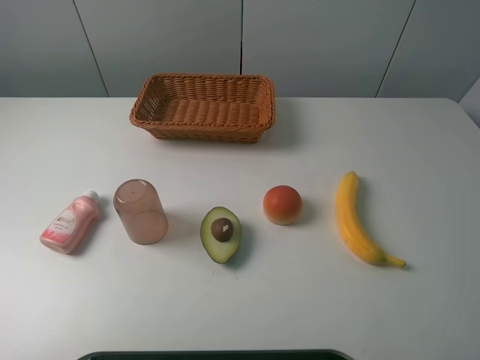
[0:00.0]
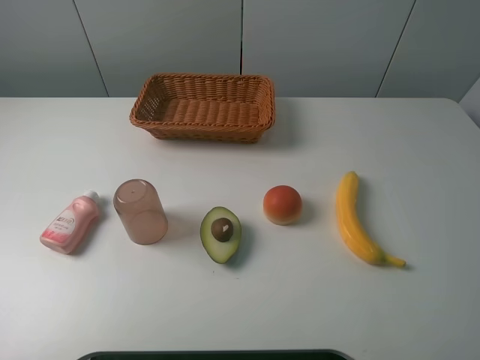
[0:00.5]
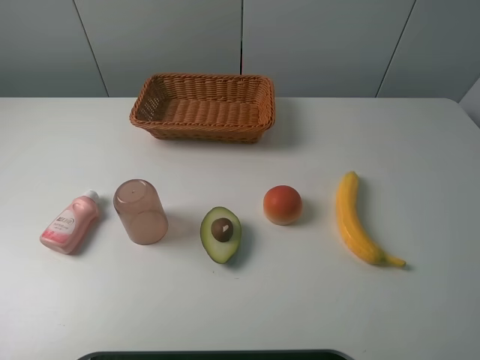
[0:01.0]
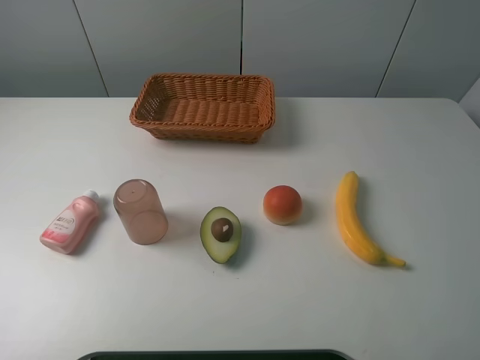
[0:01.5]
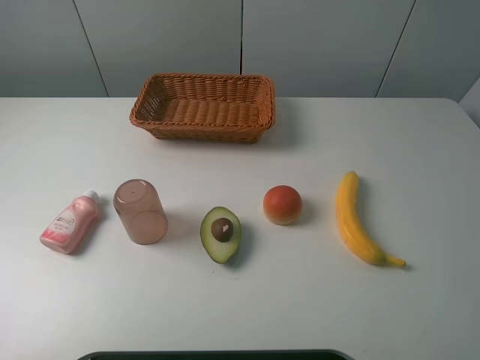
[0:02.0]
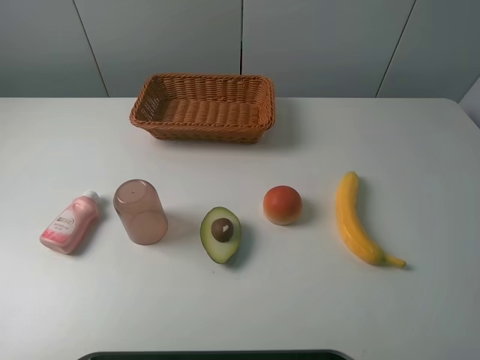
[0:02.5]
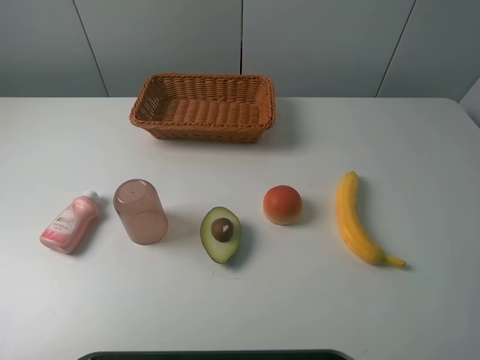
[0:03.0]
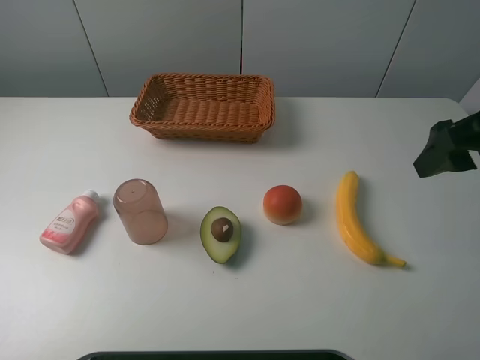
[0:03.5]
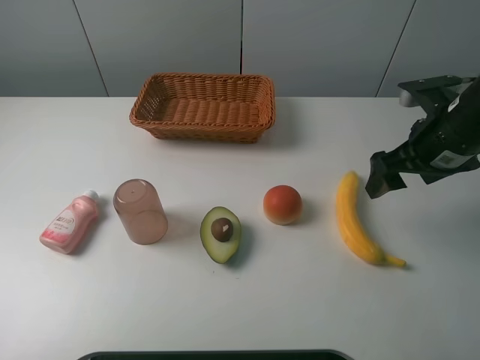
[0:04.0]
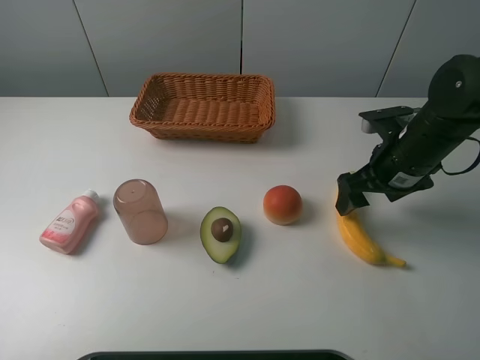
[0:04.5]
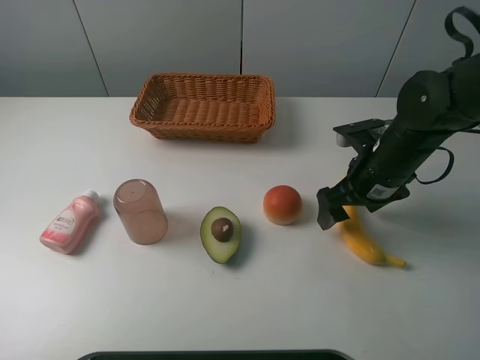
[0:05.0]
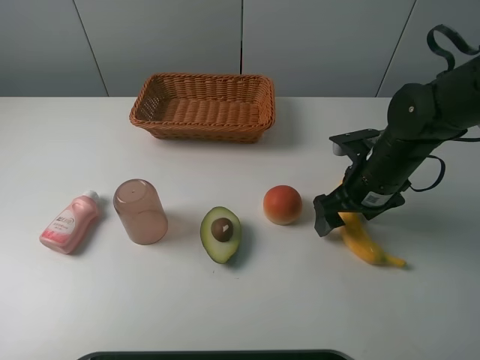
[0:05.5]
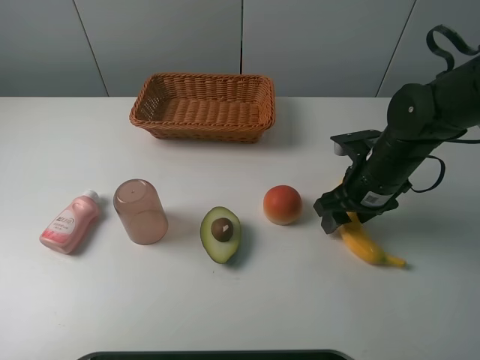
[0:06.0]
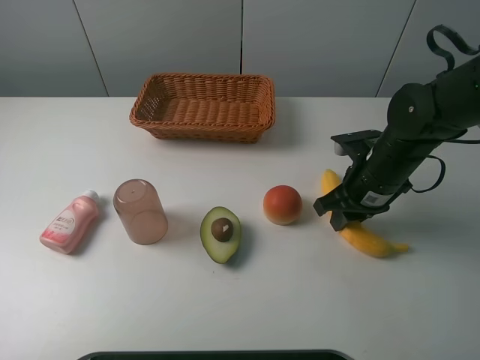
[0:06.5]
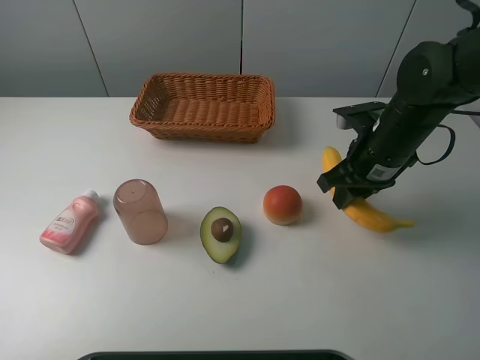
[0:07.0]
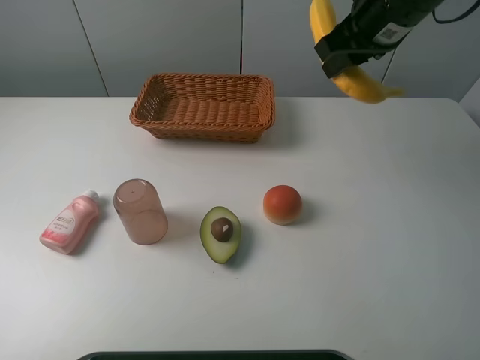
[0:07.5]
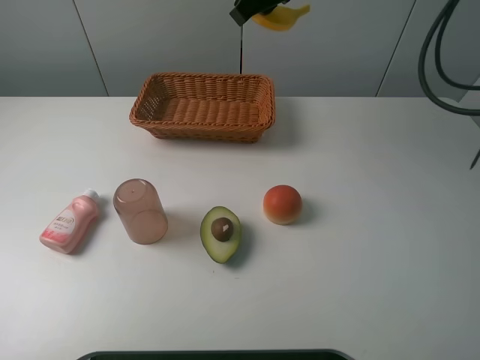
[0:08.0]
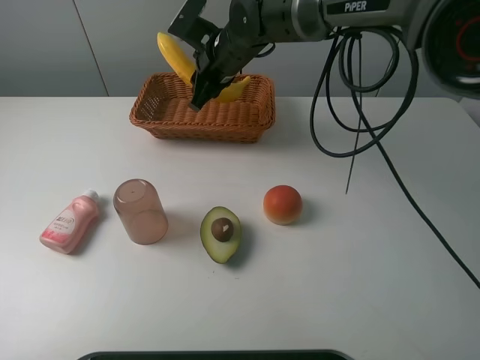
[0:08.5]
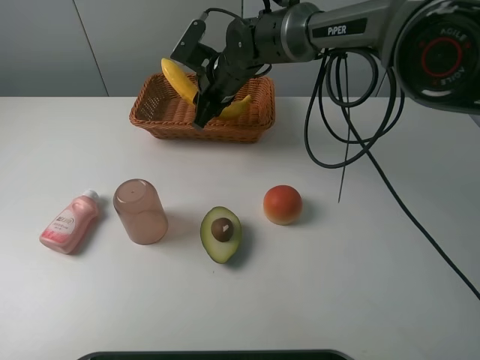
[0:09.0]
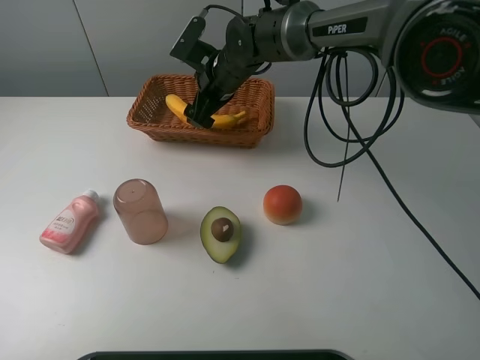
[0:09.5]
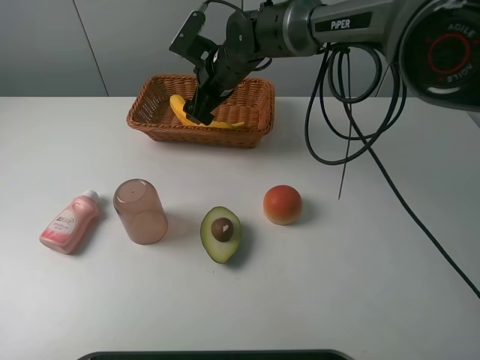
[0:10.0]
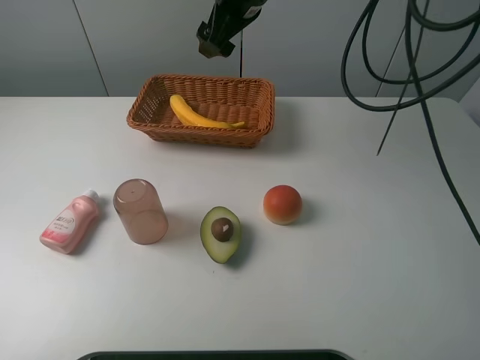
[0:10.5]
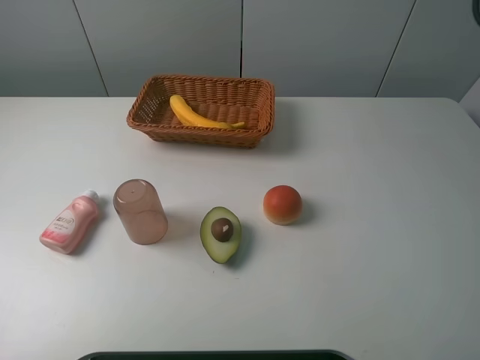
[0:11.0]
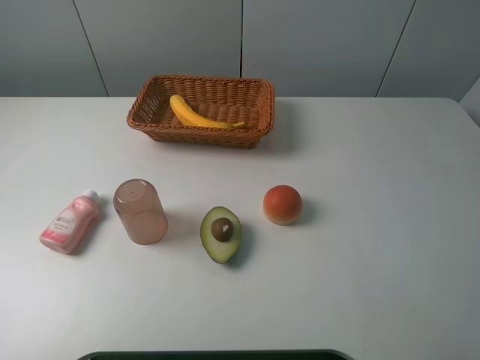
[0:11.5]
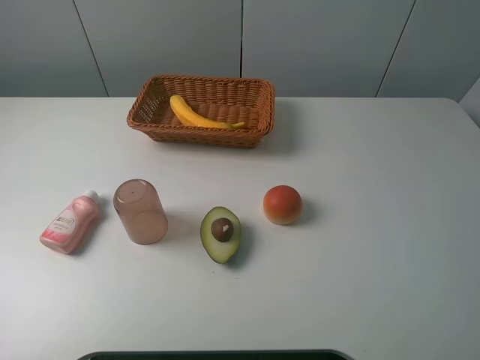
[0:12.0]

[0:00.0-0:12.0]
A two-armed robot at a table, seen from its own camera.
Task of the whole recording: randomly pick up an item from the table and put it in the basket.
Step, 0:00.0 to 0:06.5: Grasp the banana with the right gripper.
Step, 0:07.0 to 0:10.0: Place the banana into the basket with the right gripper.
0:00.0 to 0:02.0: Both grippers stay put.
0:02.0 to 0:04.0: The right gripper shifts roughly 25 cm forward.
0:04.0 to 0:06.0: The right gripper shifts roughly 10 cm downward and to the left, and closes up.
0:06.0 to 0:08.0: The right gripper is displaced upward, to the left and forward by about 30 cm.
0:08.0 to 0:10.0: The right gripper heads downward and to the left, covering roughly 15 cm, and opens its fingers.
0:10.0 to 0:12.0: The right gripper shifts approximately 50 cm to the right, backward and upward.

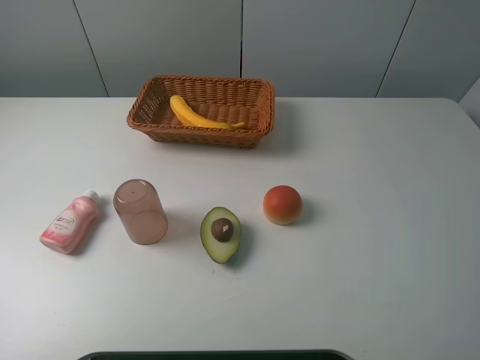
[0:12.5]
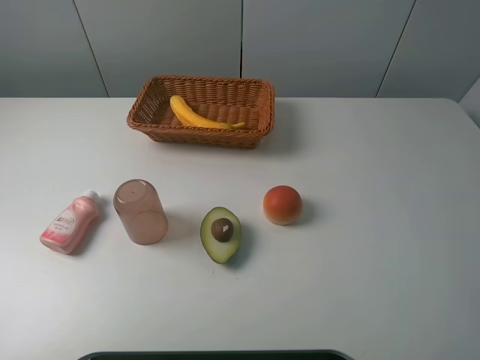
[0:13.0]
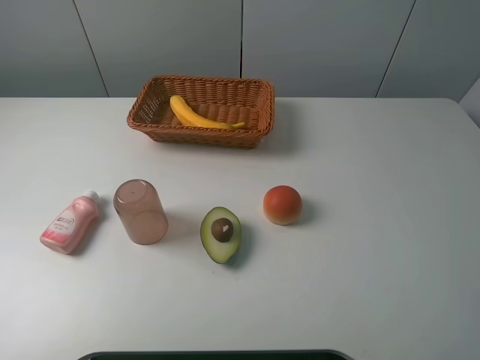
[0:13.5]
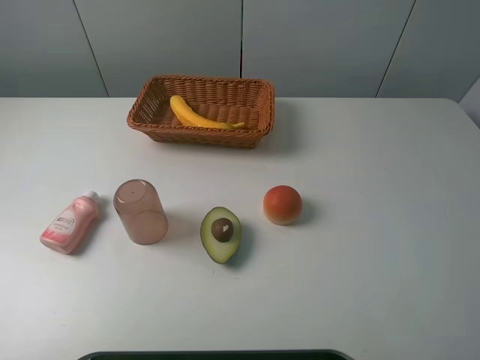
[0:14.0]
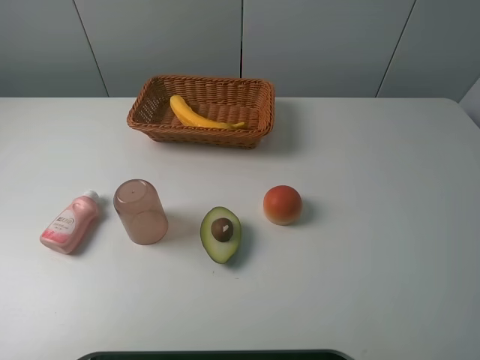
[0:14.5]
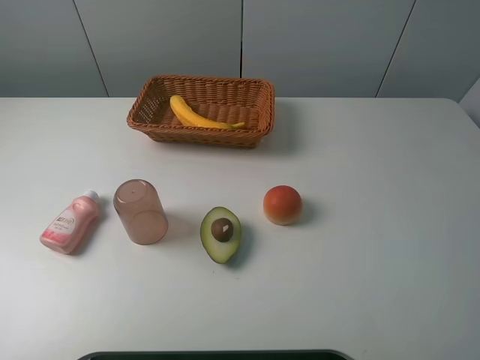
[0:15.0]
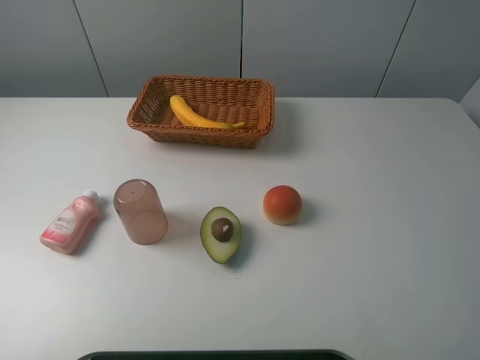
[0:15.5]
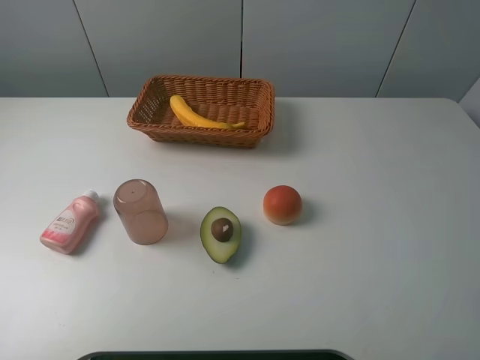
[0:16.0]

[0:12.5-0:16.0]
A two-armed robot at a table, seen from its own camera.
Task of the whole recording: randomly pick up an item from the table and put it in the basket.
0:14.5 to 0:16.0: Both grippers stay put.

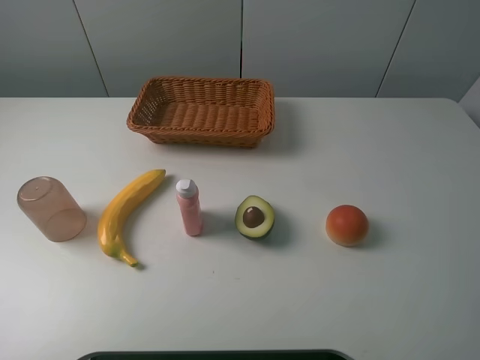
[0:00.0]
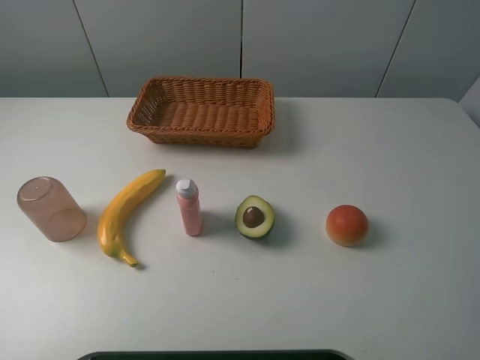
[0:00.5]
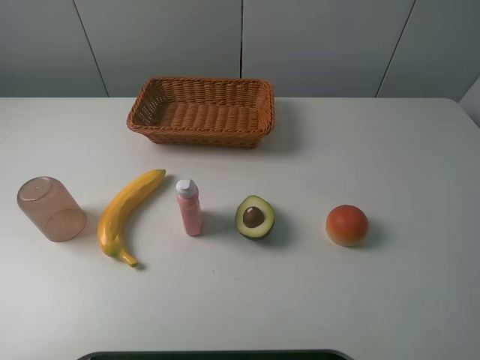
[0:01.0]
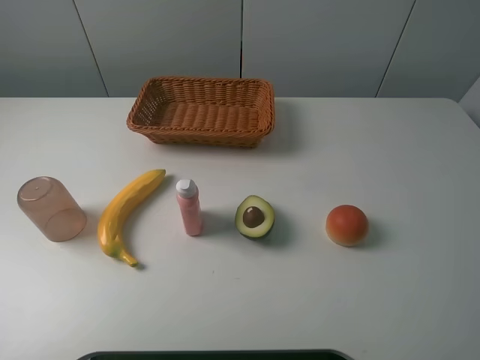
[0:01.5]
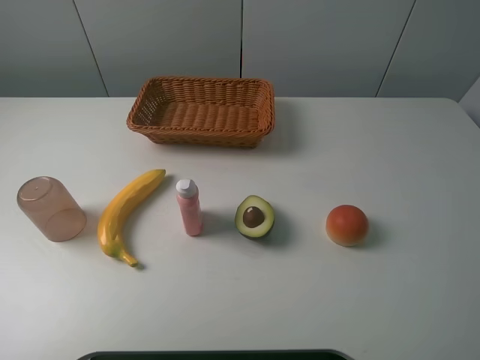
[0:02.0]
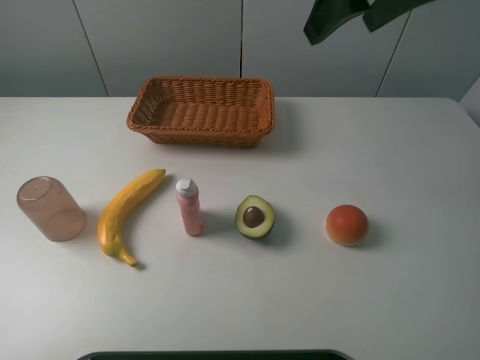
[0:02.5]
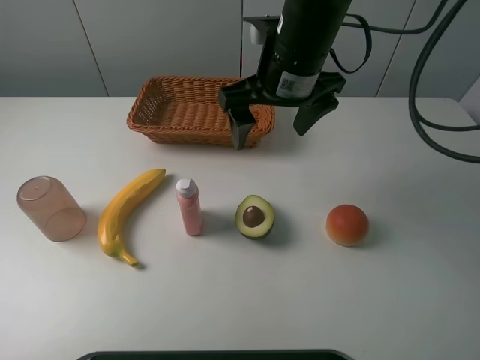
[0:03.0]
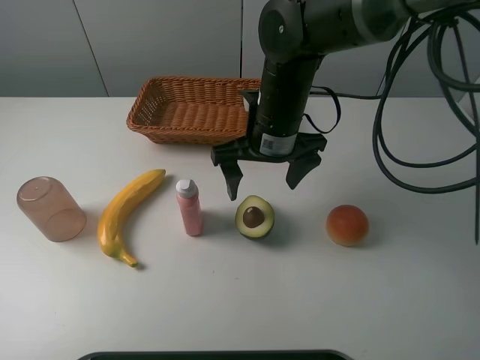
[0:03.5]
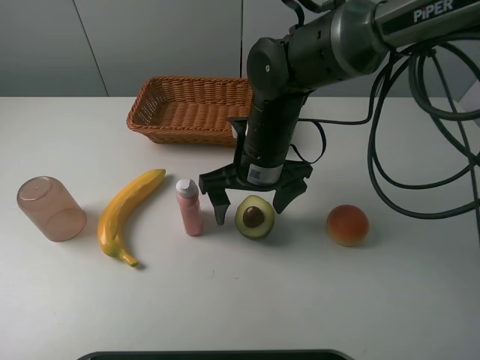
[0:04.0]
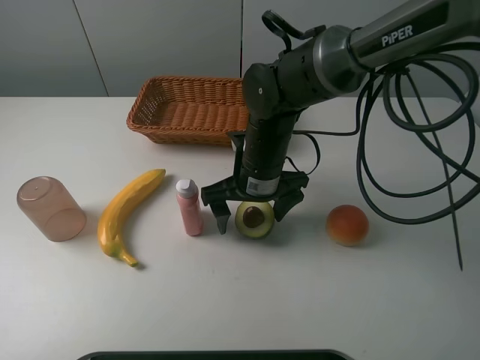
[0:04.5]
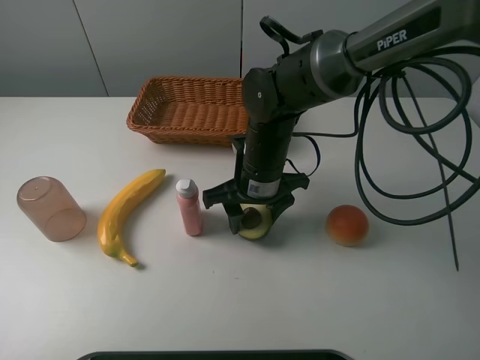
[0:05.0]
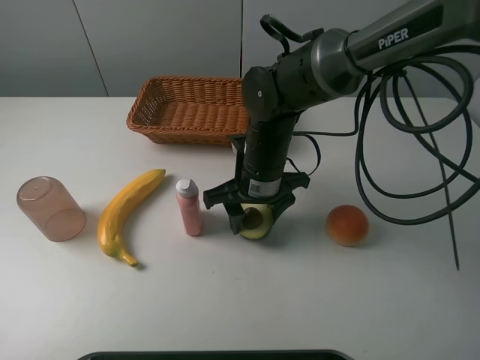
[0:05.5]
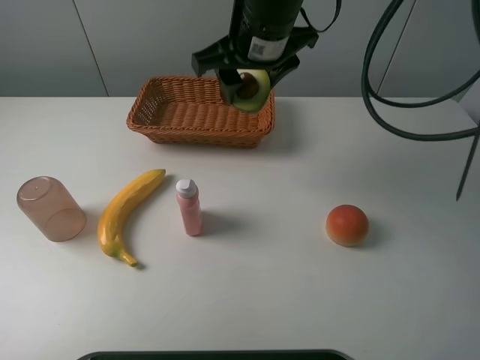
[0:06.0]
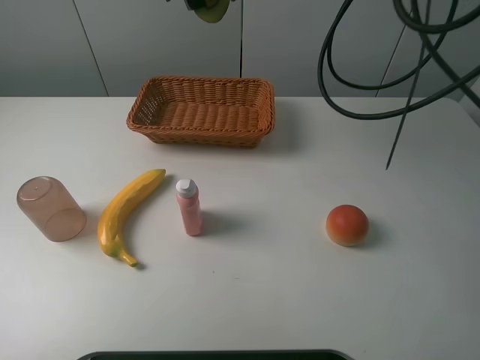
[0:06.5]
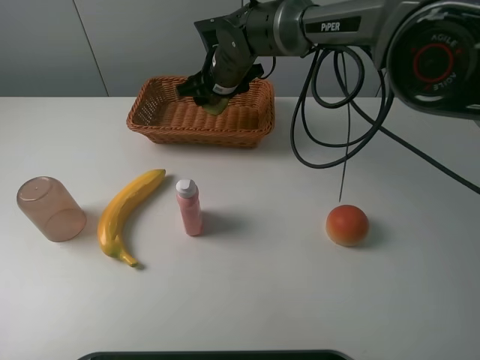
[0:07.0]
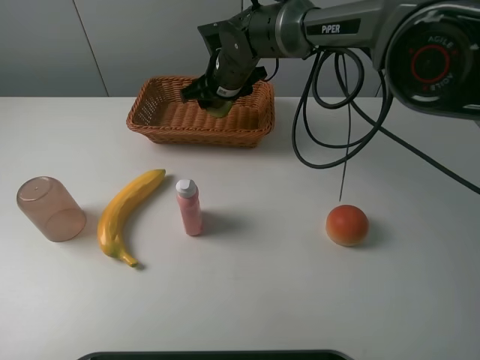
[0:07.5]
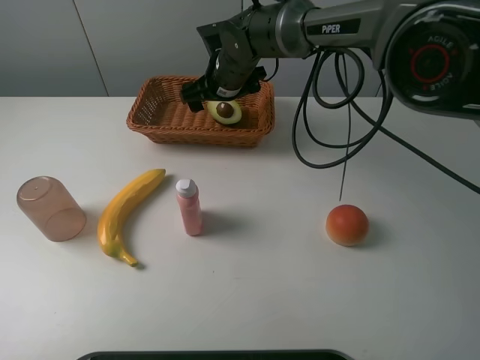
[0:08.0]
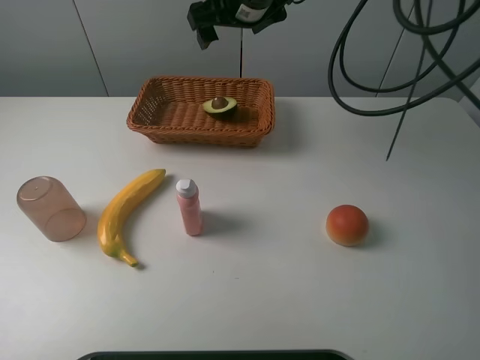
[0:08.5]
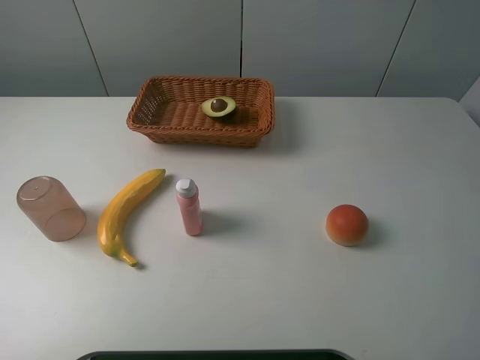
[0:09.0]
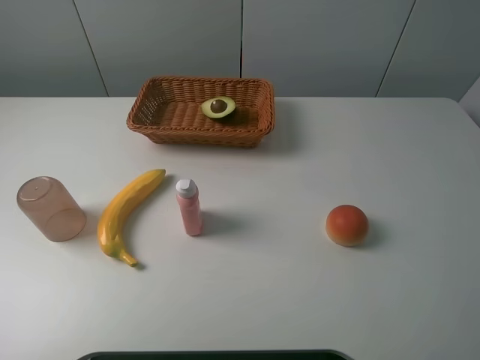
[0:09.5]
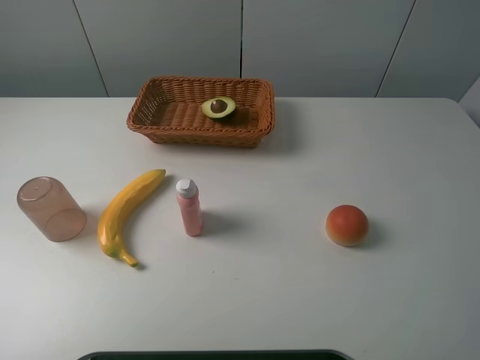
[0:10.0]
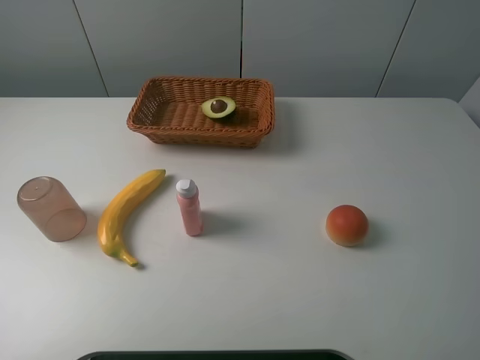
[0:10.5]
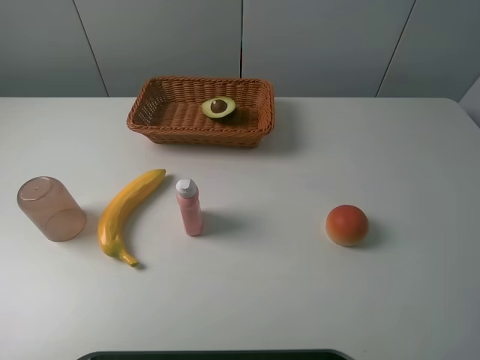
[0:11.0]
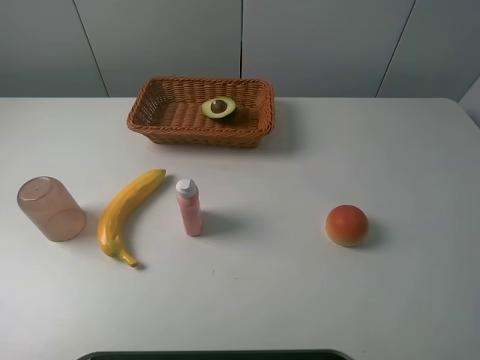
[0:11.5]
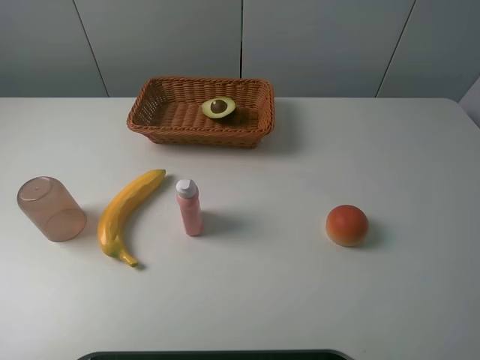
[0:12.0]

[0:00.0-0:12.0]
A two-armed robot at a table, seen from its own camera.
Task of the whole recording: randomly pick up an item from the table and put it in the basket.
Step, 0:00.0 to 0:05.0: Grasp the avocado with the right gripper.
Step, 0:05.5 to 0:08.0: Place the avocado into the basket with the right gripper.
0:02.0 to 0:04.0: The right gripper moves downward and to the left, approximately 40 cm.
0:04.0 to 0:06.0: The right gripper travels upward by roughly 15 cm, and closes up.
0:06.0 to 0:08.0: The right gripper goes some 20 cm downward and forward, and opens.
0:08.0 to 0:10.0: The right gripper shifts approximately 50 cm upward, backward and to the right.
